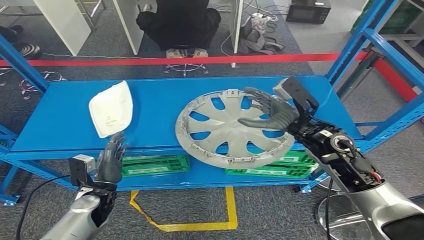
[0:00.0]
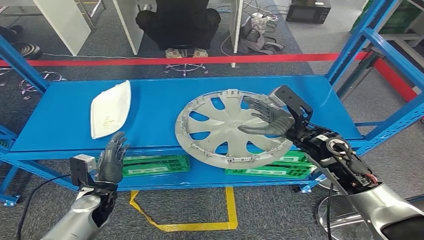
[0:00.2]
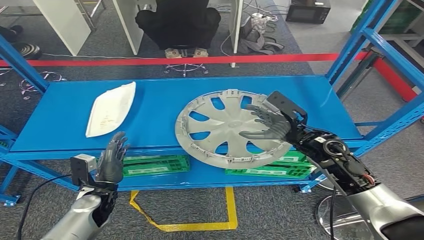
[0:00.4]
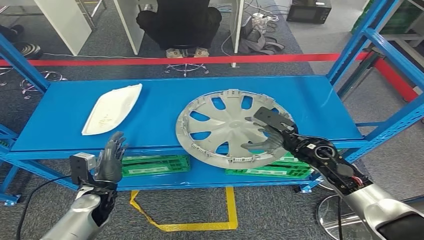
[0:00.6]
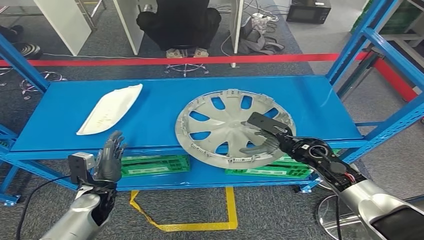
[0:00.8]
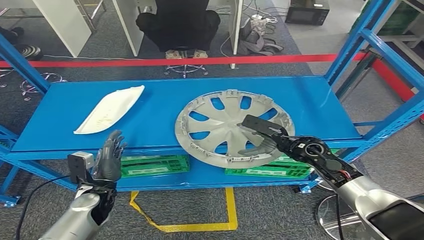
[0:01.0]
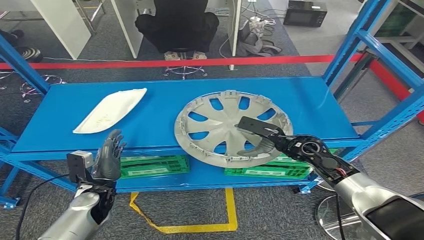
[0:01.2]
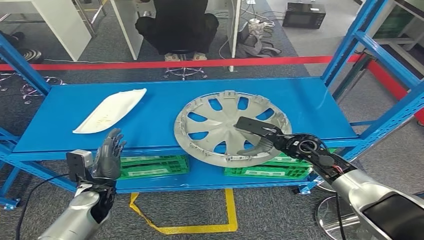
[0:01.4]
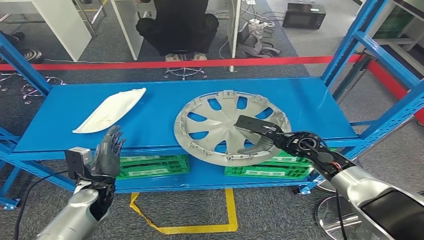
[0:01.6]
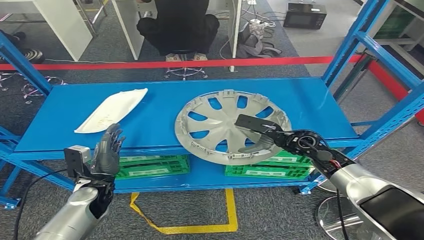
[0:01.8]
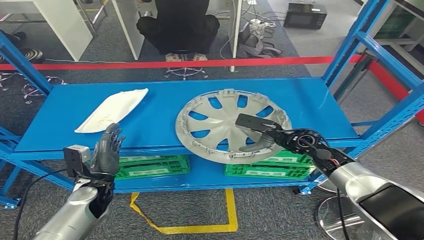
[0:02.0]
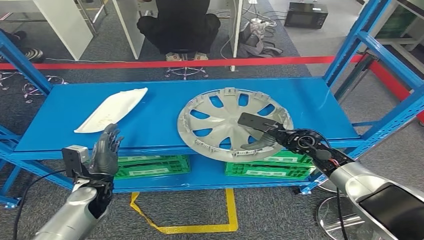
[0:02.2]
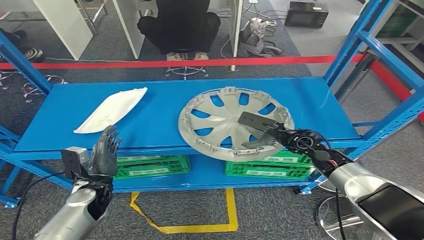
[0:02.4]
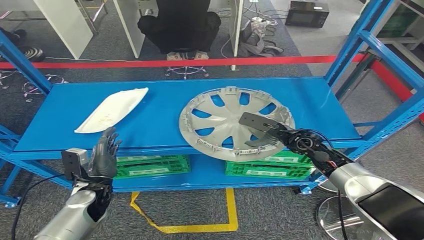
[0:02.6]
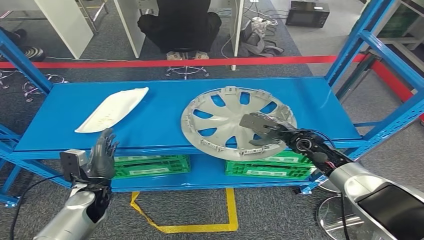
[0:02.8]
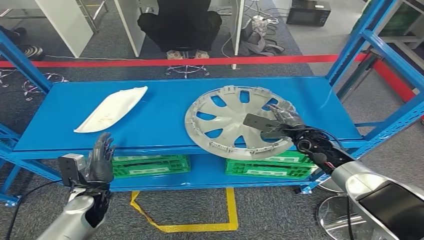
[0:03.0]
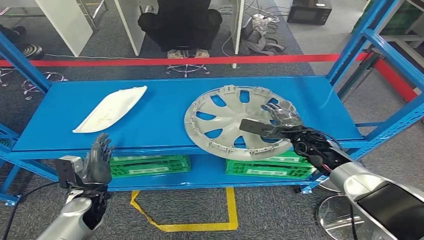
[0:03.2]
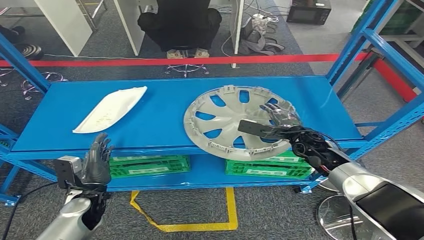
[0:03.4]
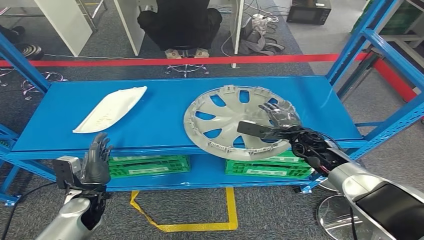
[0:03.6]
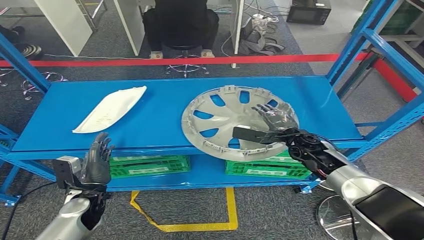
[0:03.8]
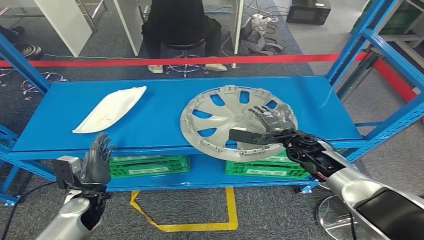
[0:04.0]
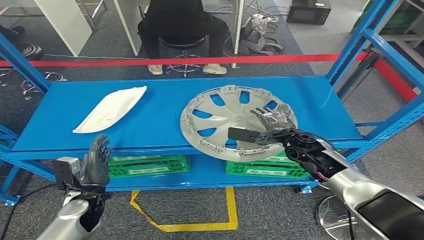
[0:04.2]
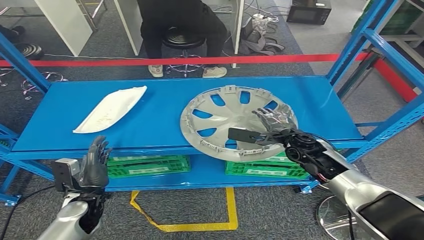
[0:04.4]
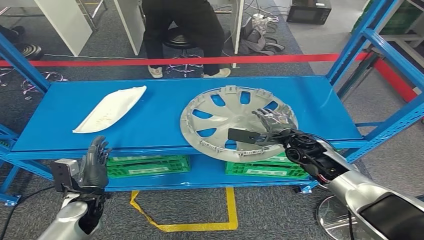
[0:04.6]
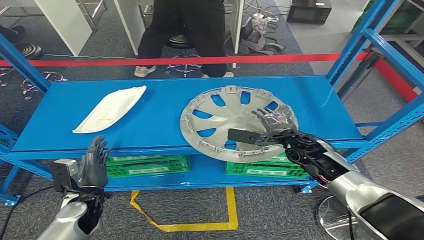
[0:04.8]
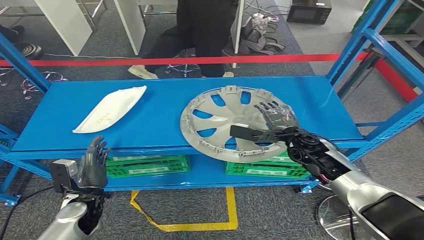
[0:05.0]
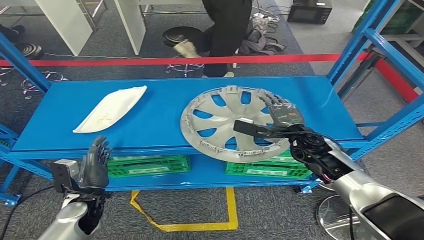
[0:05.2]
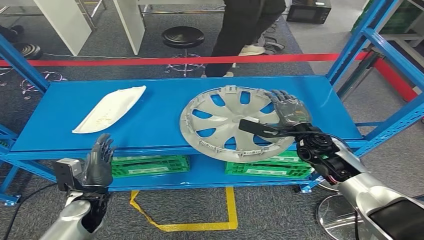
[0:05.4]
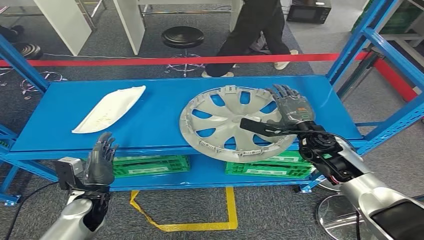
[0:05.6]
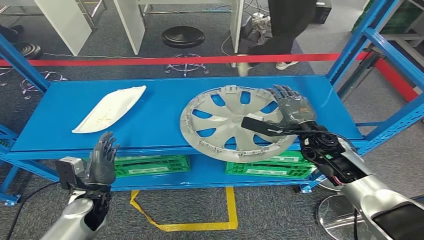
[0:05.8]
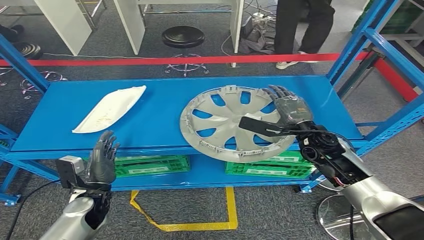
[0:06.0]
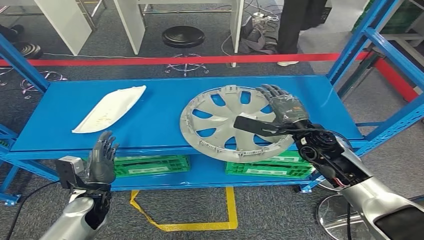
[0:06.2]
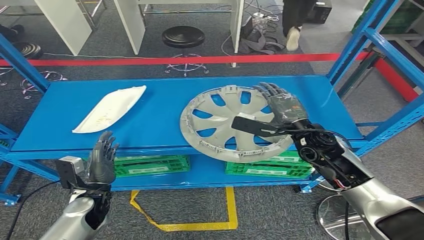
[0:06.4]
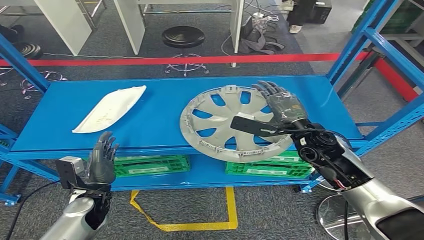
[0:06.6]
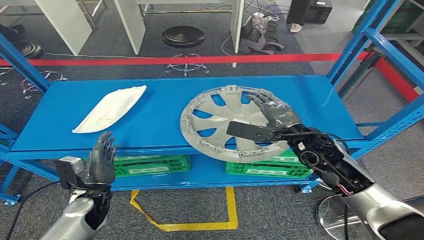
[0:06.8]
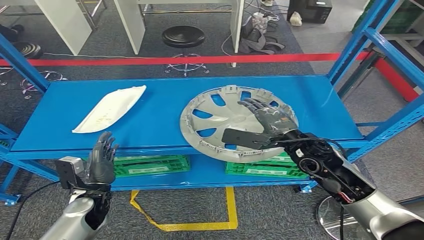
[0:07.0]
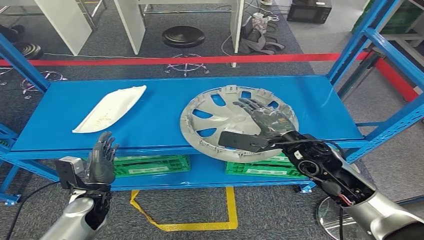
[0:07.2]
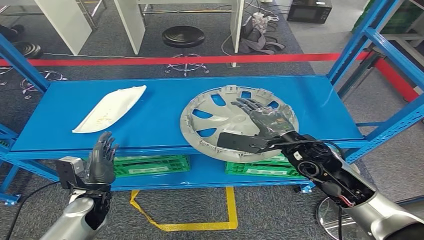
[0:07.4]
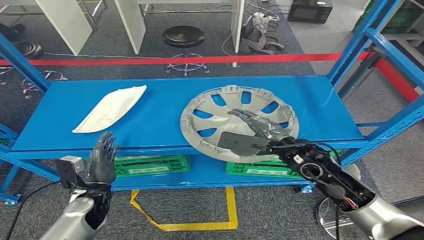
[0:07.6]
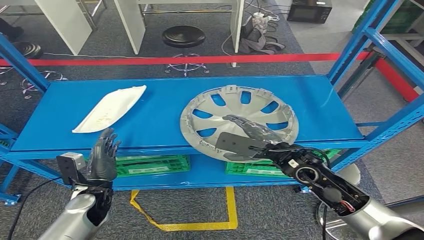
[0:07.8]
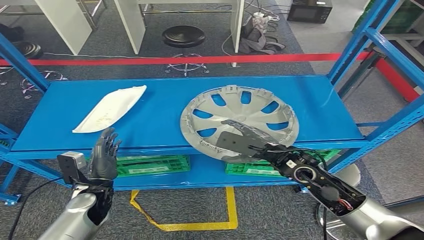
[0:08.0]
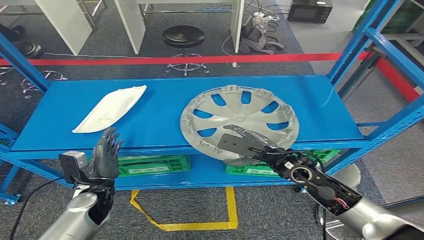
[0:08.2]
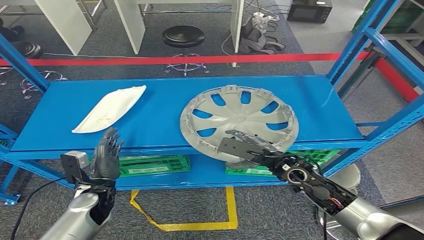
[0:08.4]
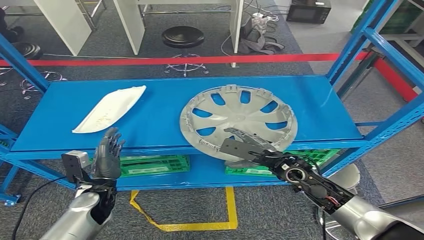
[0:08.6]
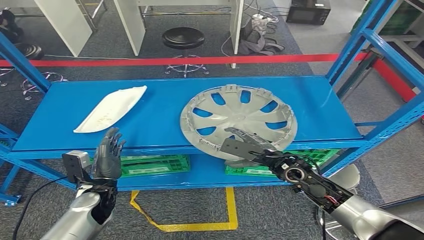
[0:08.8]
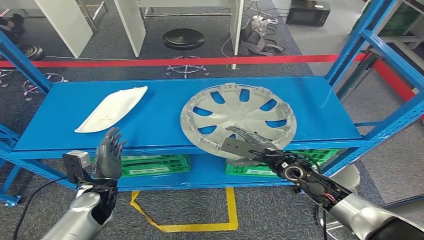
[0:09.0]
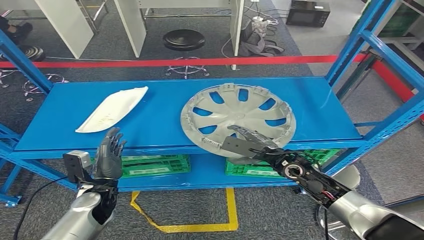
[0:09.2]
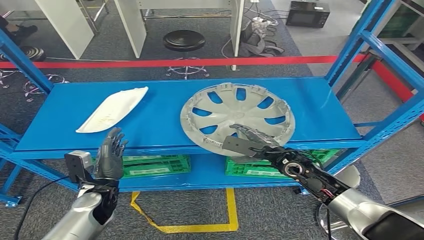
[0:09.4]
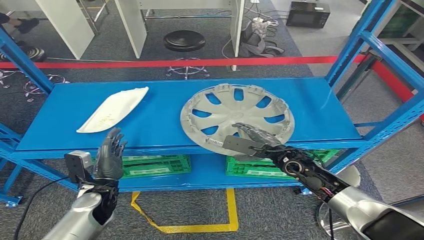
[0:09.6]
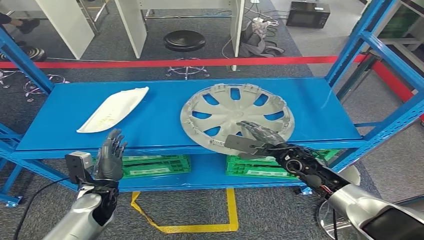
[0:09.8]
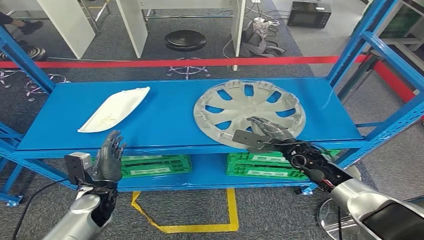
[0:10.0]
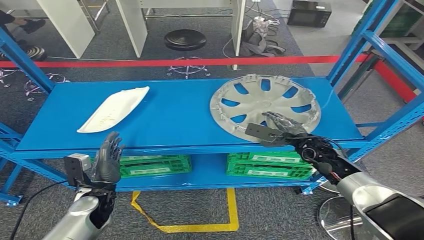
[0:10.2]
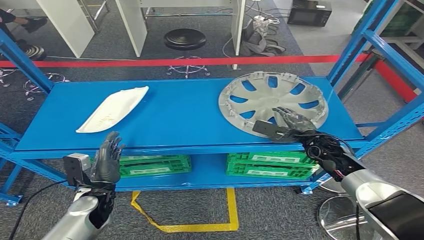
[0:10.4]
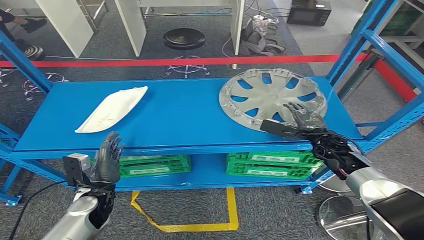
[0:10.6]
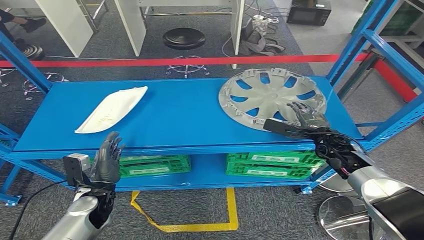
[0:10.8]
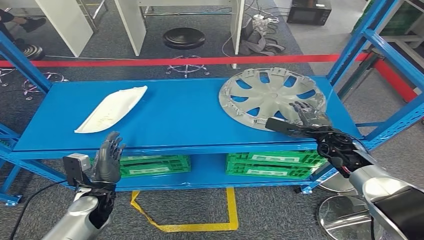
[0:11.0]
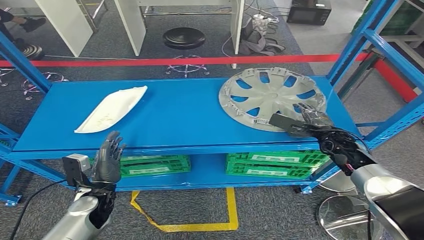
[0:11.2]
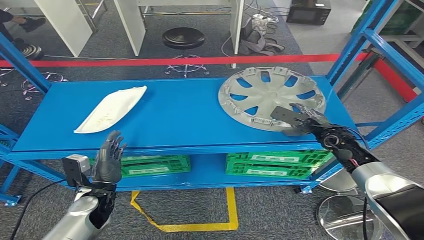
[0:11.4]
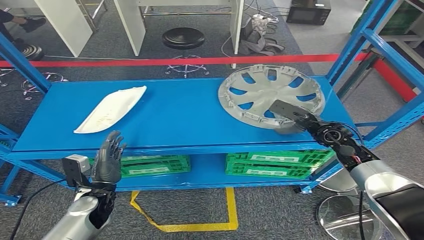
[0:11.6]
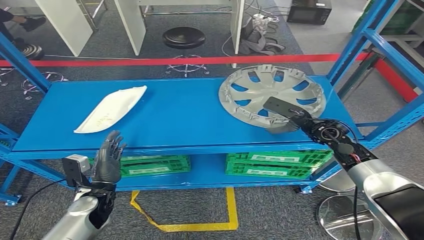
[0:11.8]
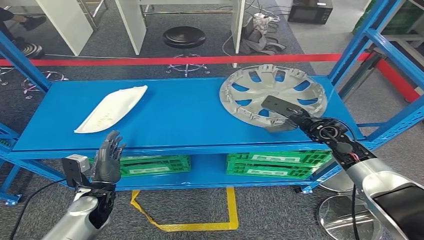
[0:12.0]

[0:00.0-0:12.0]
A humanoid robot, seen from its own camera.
0:03.0 to 0:04.4: There are only small adjustments of the hands.
0:06.0 to 0:07.6: The right hand goes approximately 10 cm to the left and backward.
0:10.4 to 0:12.0: The right hand is displaced upward by about 5 cm.

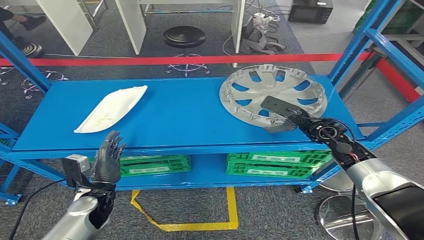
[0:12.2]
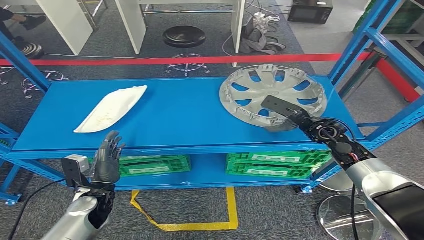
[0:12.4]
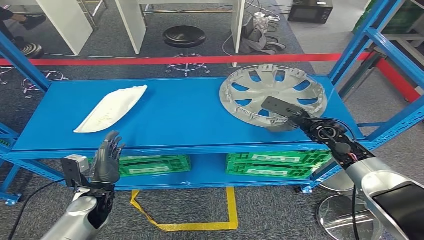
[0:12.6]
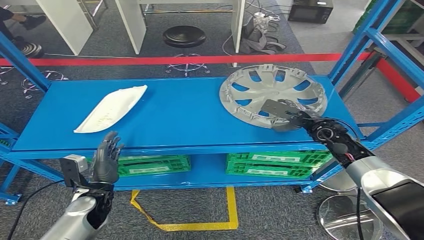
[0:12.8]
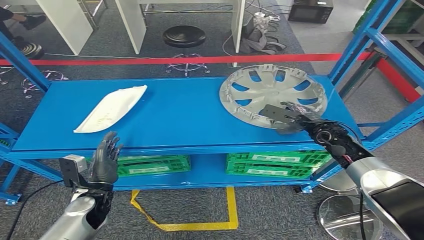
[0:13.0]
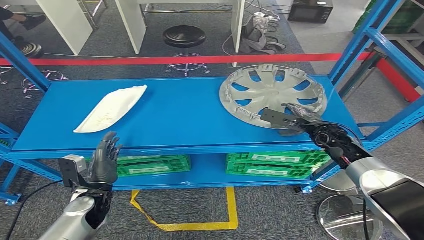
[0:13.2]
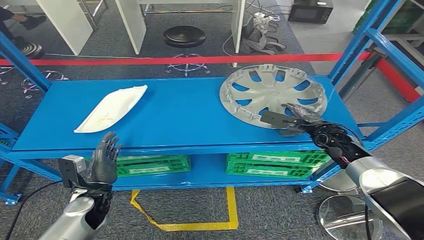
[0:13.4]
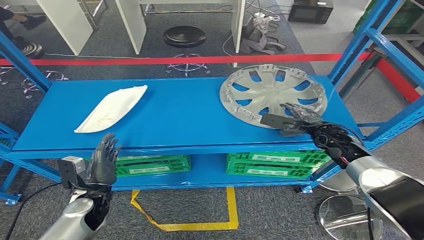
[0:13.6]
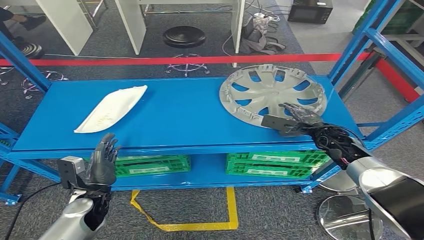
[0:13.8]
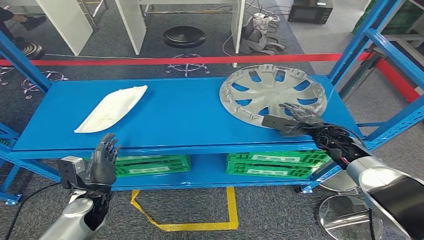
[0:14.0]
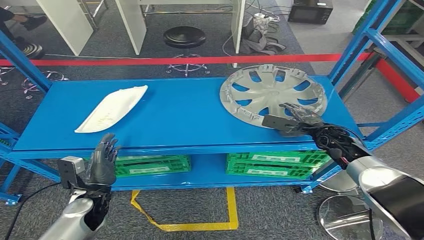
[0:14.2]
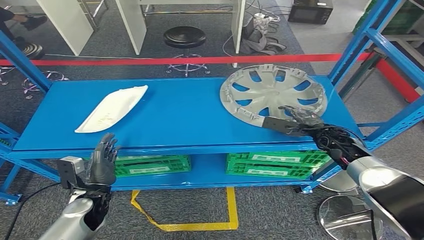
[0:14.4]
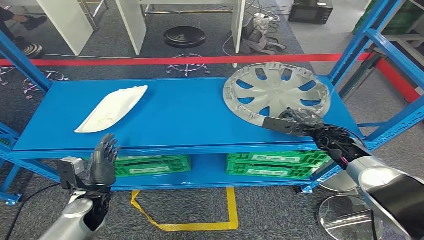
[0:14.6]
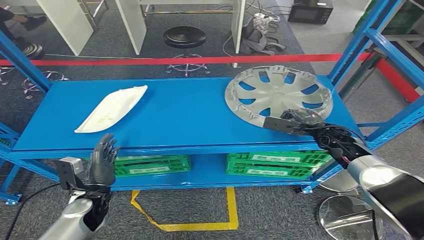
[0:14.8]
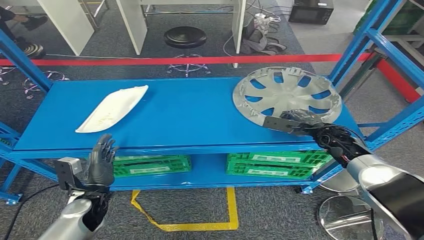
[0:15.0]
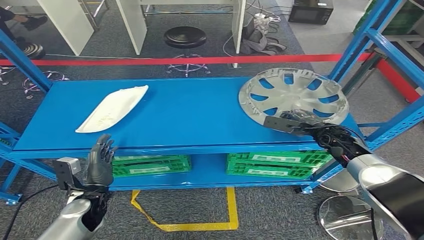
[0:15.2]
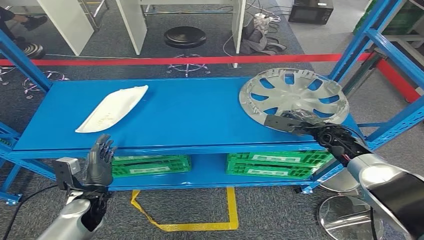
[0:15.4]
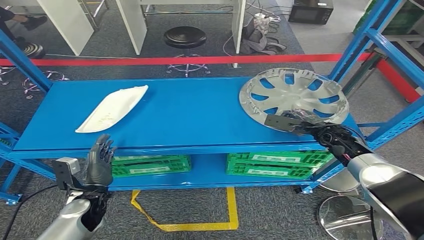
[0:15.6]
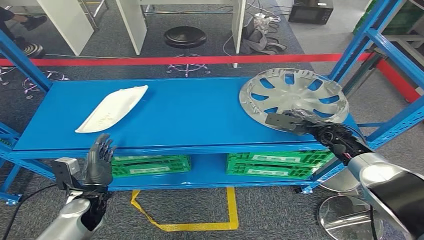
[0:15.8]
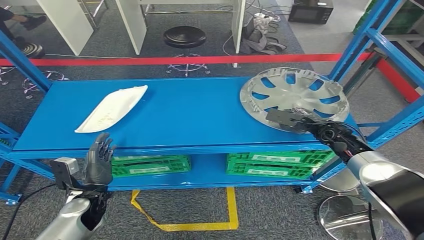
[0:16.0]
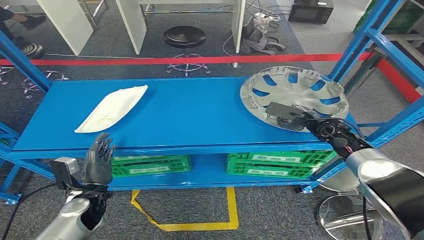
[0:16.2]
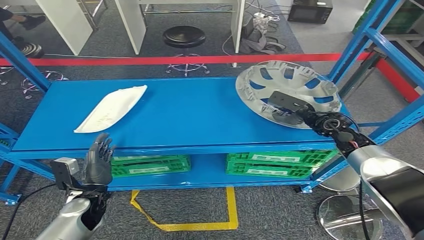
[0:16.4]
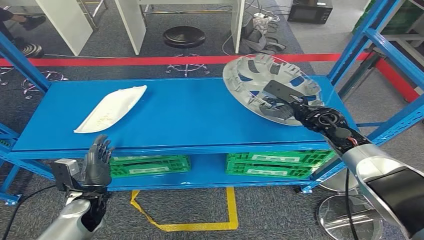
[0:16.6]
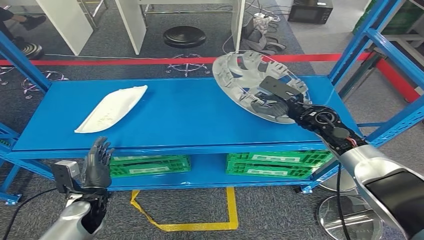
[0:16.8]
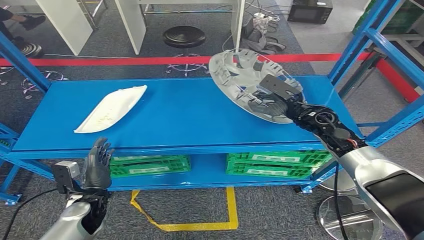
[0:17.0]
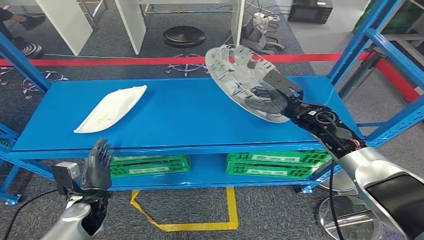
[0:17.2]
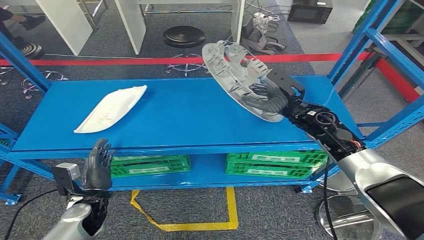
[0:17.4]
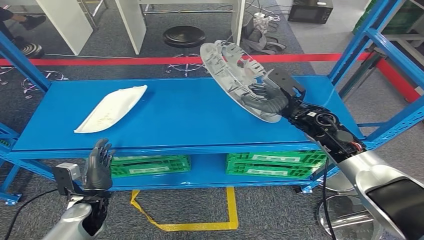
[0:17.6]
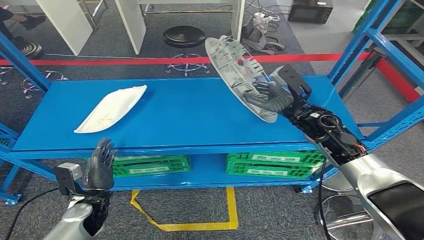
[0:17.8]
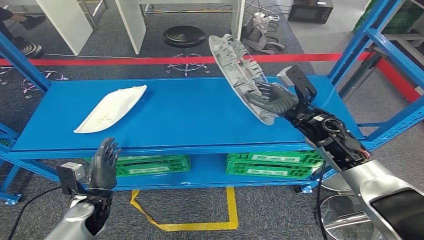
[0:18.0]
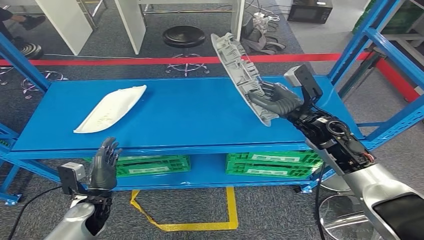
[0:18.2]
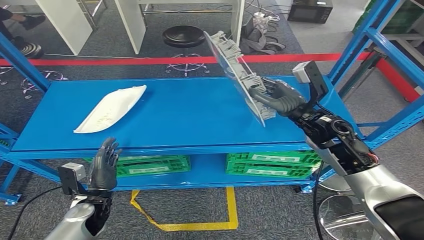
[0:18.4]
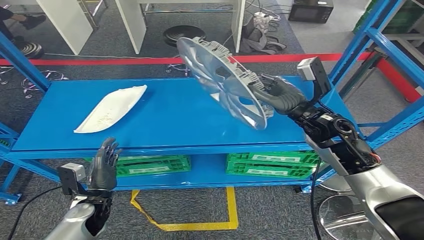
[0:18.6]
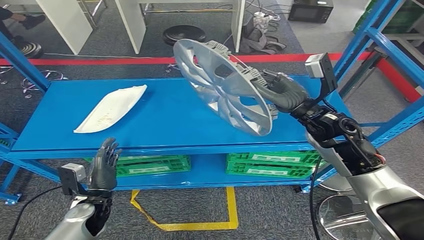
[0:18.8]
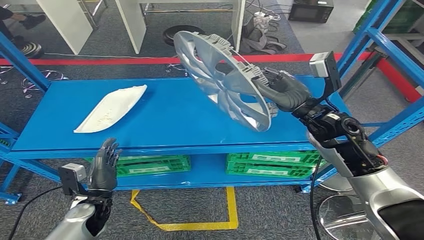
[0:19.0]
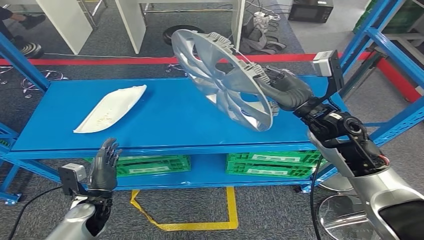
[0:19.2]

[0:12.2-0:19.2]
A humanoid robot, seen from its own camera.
Step, 0:12.2 to 0:18.6: Pick up the small parts from the shelf.
0:13.6 to 0:15.0: The hands make only small movements.
0:15.0 to 0:16.4: The right hand changes place by roughly 5 cm.
0:16.4 to 0:17.8: The right hand shifts some 10 cm to the left and upward.
0:17.8 to 0:19.2: The right hand travels upward by about 5 cm.
